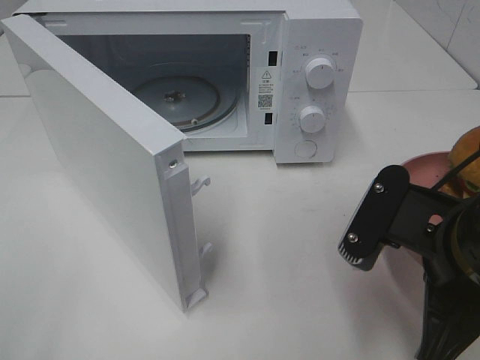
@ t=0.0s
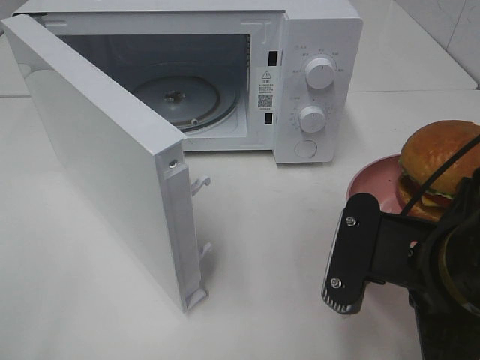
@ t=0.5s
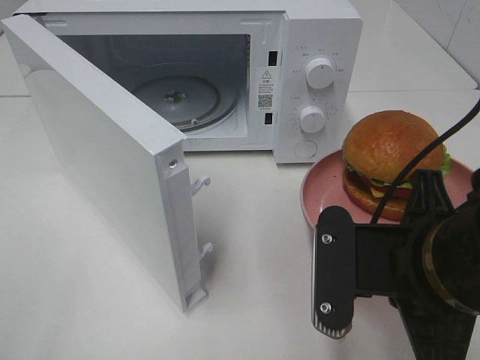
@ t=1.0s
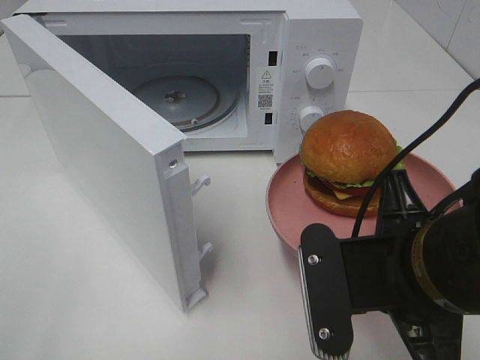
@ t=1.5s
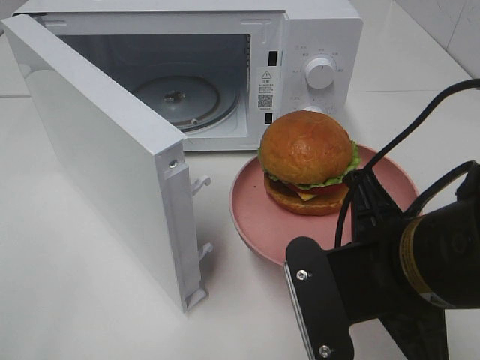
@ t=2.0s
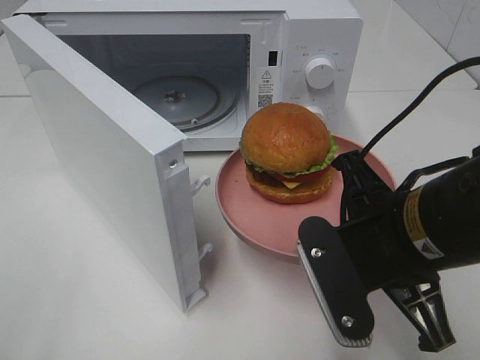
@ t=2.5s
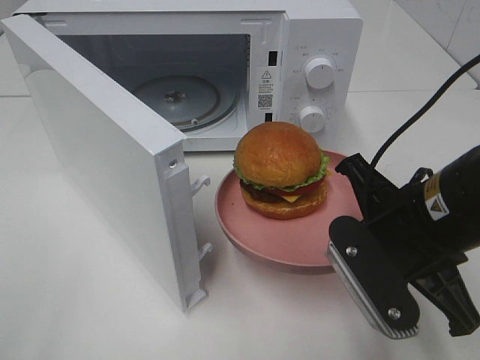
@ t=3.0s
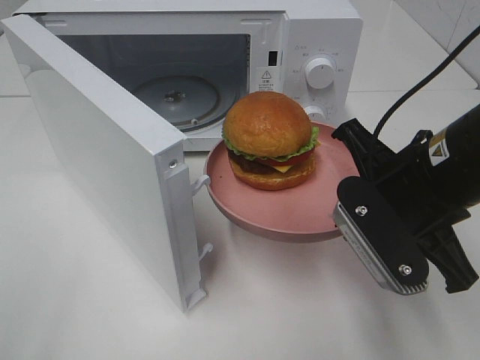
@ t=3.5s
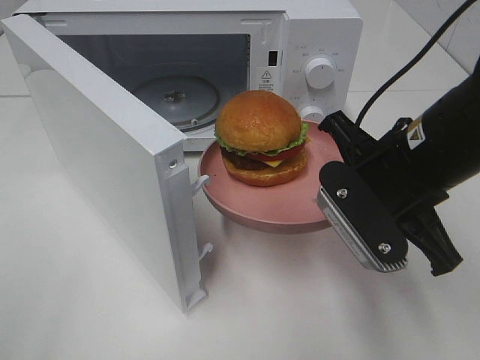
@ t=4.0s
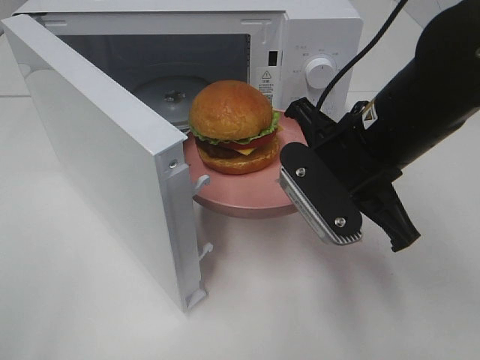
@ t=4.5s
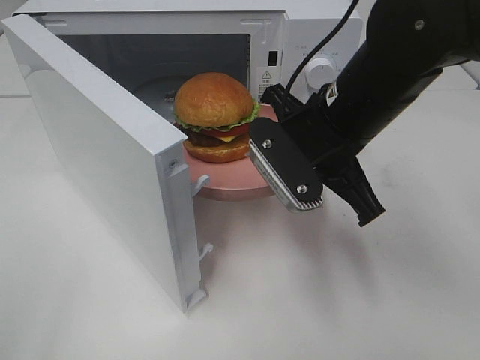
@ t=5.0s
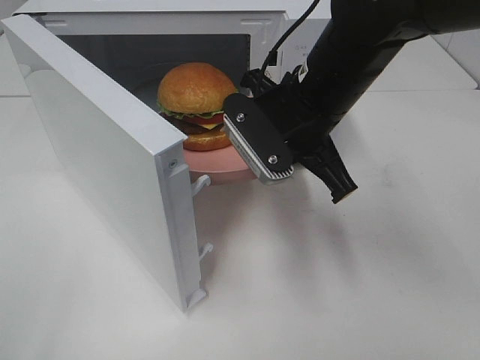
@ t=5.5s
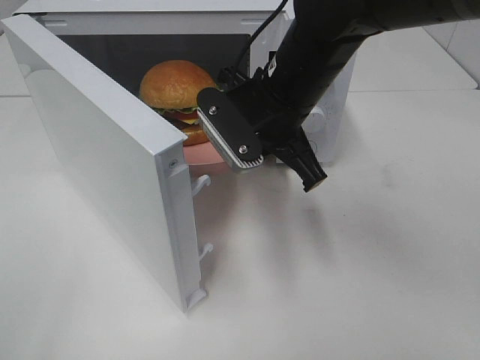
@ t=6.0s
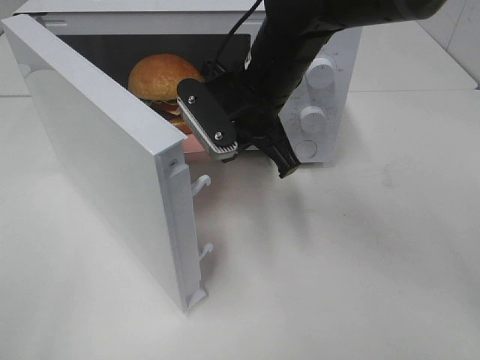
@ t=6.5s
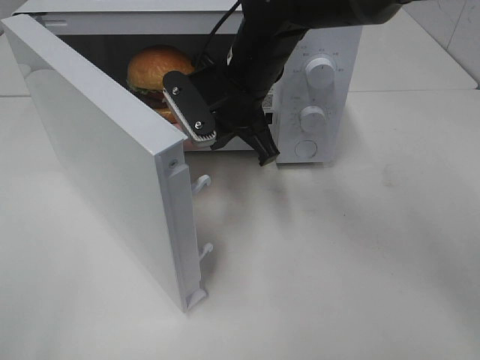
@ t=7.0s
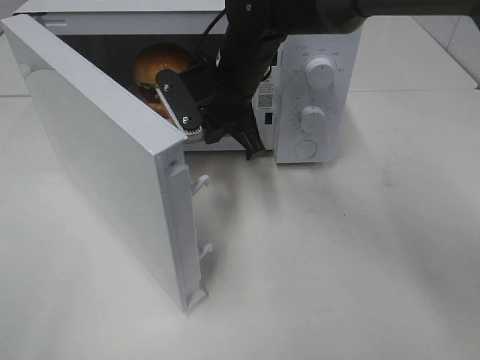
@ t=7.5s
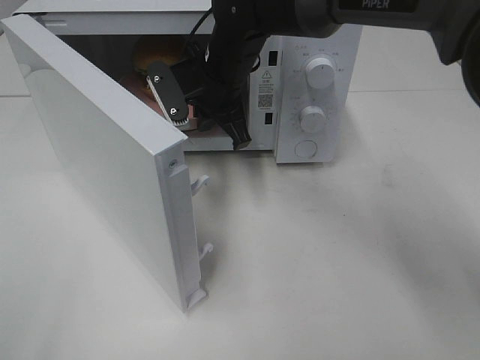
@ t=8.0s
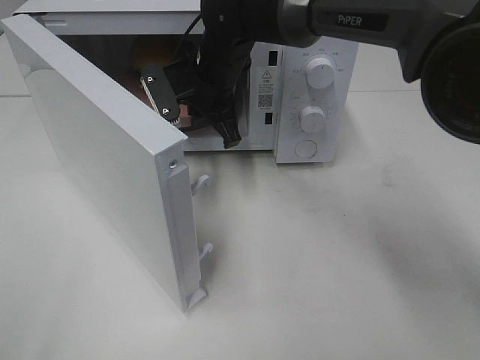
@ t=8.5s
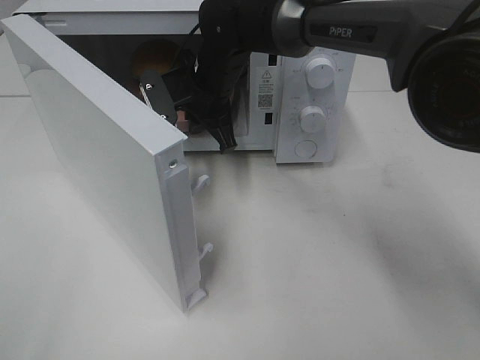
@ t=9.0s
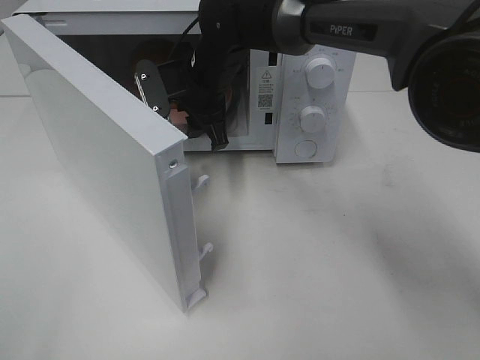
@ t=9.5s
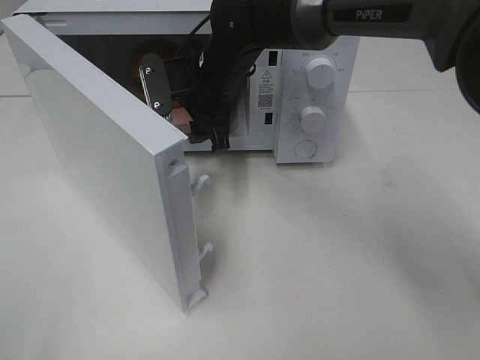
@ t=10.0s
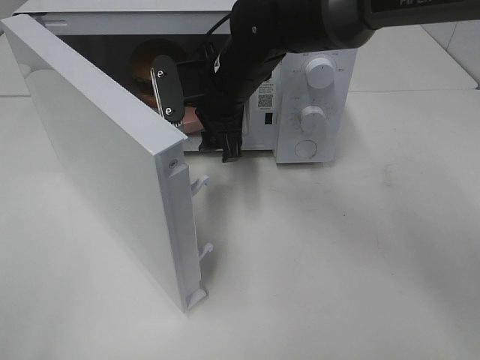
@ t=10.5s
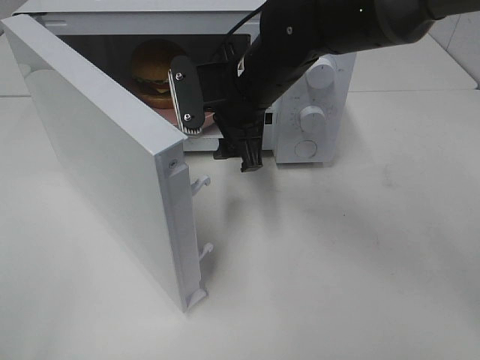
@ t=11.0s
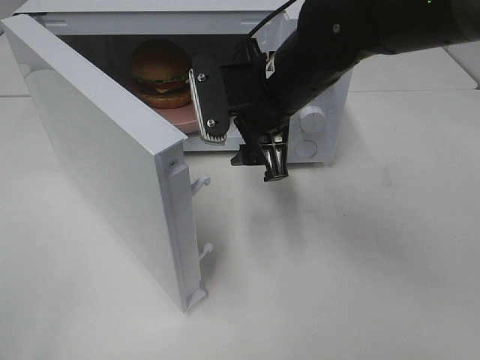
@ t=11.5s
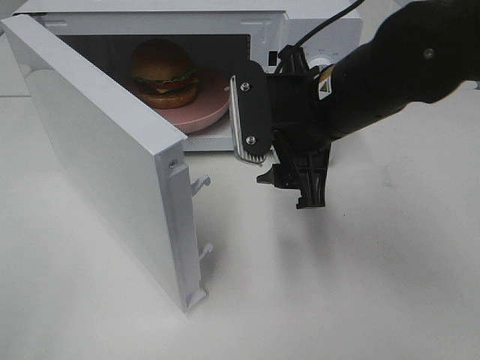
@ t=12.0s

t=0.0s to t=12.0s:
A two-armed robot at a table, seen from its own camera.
Task of the whole recording: Heat the burger.
Step, t=0.0s to t=9.0s: Right hand: place the plate in the microwave.
t=2.0s to t=4.0s: The right gripper moves forward, roughly 10 cm.
t=4.0s to t=6.0s: The right gripper travels forward and to the left by roughly 15 cm.
t=6.0s to t=8.0s: The right gripper goes roughly 10 cm forward and to the left.
t=8.0s to t=10.0s: The right gripper opens its fingers.
t=10.0s to t=12.0s: The right gripper shifts some 20 cm backward and to the right.

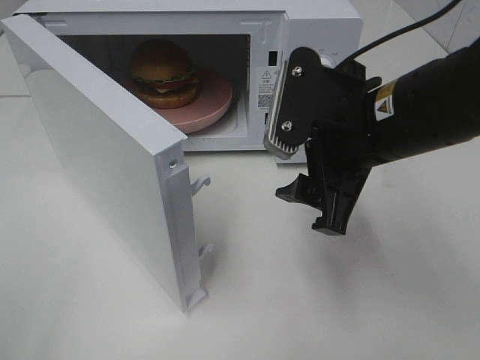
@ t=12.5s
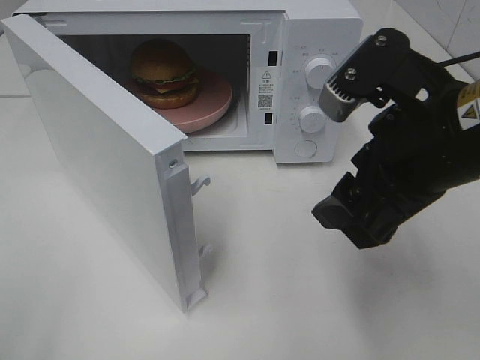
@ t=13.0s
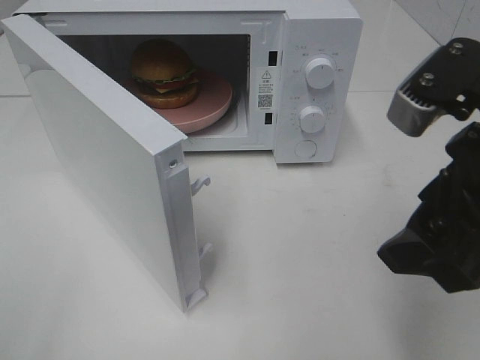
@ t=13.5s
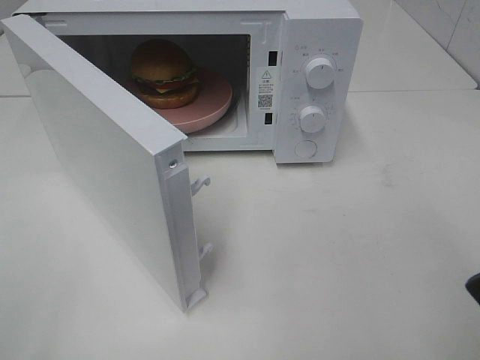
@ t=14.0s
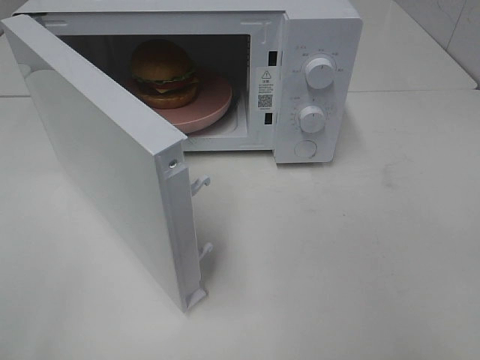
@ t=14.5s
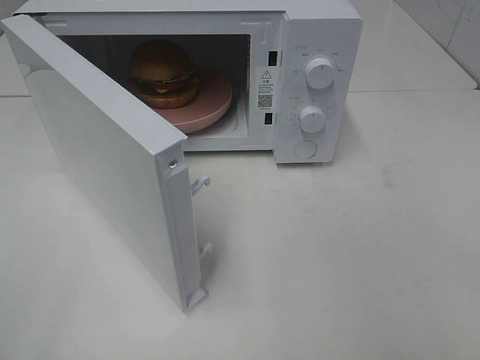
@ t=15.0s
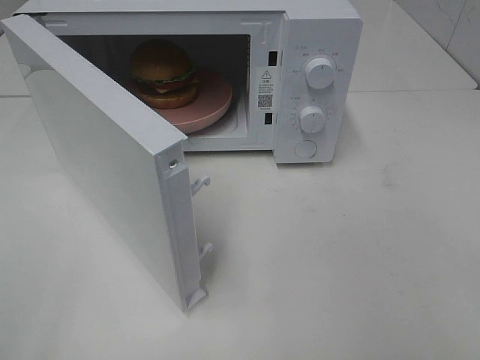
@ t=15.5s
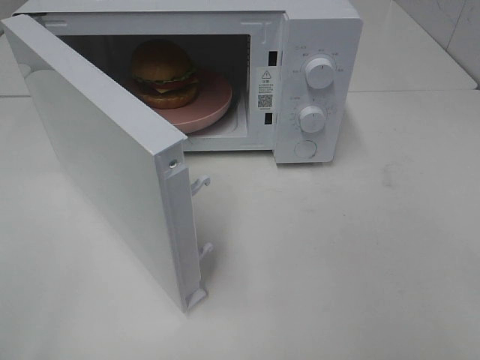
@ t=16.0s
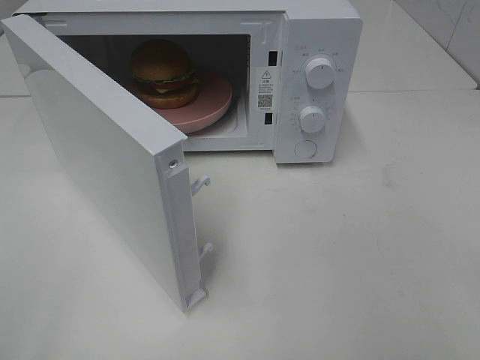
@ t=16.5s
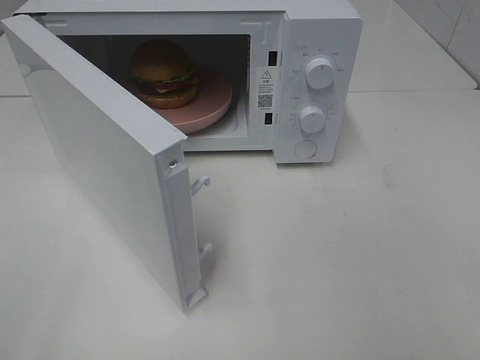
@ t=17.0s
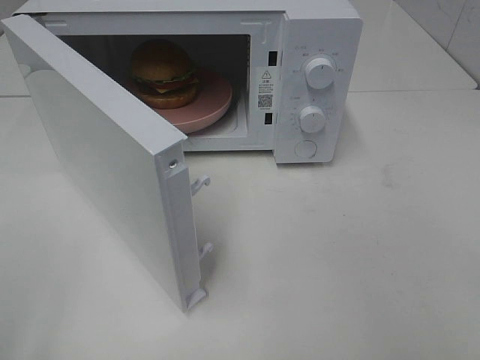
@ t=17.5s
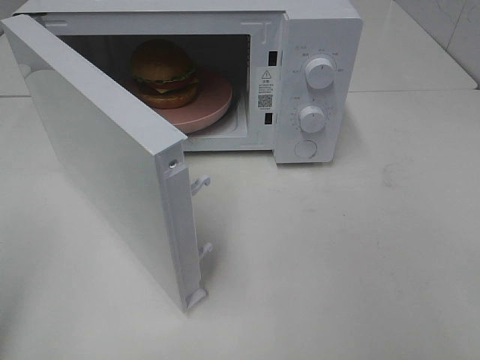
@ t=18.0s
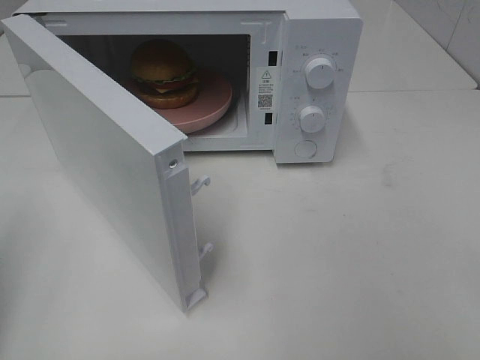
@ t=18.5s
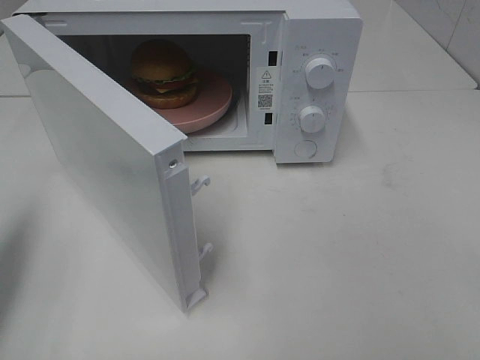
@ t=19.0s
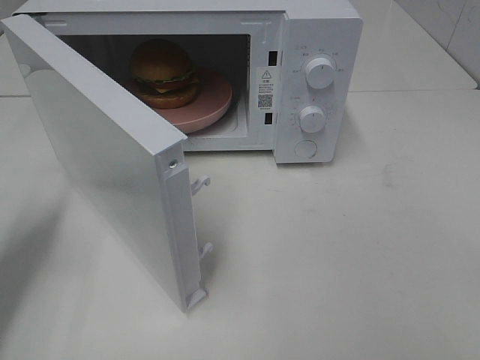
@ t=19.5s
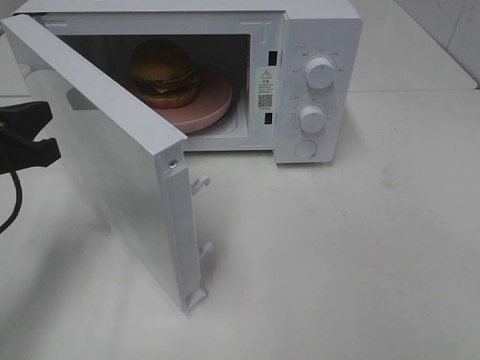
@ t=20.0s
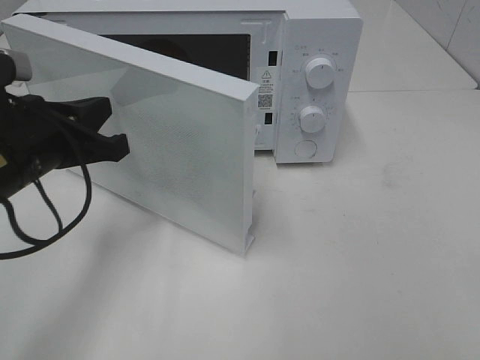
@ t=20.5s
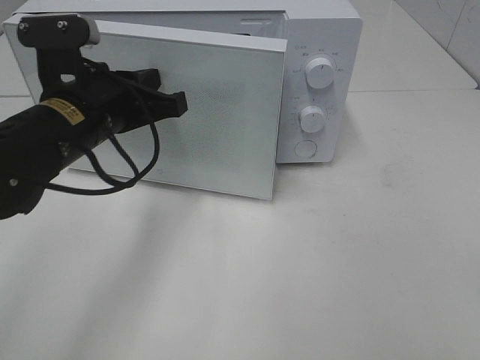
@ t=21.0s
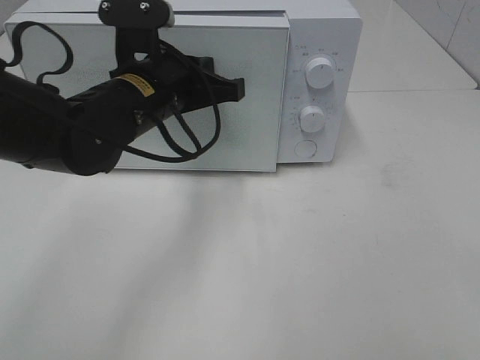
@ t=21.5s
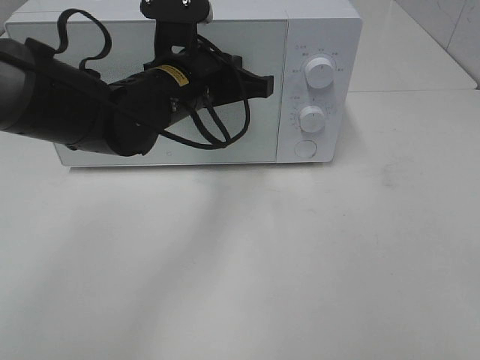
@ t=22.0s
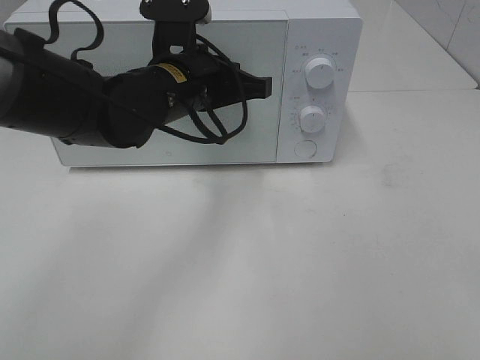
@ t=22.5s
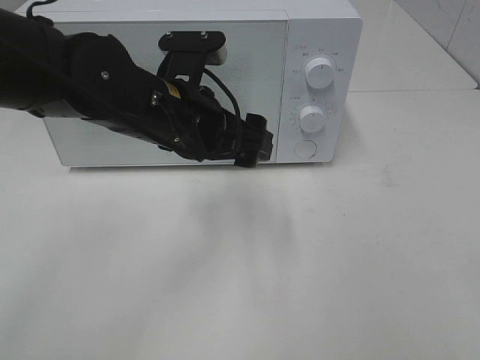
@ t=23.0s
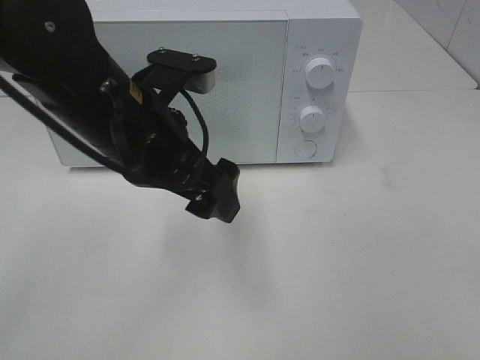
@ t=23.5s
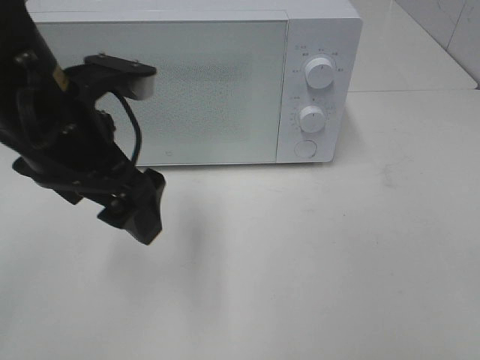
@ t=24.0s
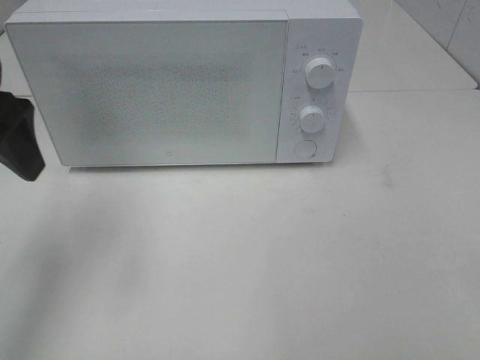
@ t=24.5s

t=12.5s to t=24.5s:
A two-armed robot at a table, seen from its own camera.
Task of the whole recording: Heat the burger.
Step, t=12.5s to t=22.5s: Left hand: close the microwave door.
t=12.5s to t=14.5s: The right gripper goes about 25 cm backward, to the right and upward.
t=18.5s to t=20.5s: The left gripper travels to the right, forward and downward by some 20 cm.
t=20.5s to t=22.5s: The left gripper goes approximately 15 cm to the right and forward.
t=22.5s to t=24.5s: The left gripper heads to the left, upward and backward, covering roughly 25 cm, and opens its fingers.

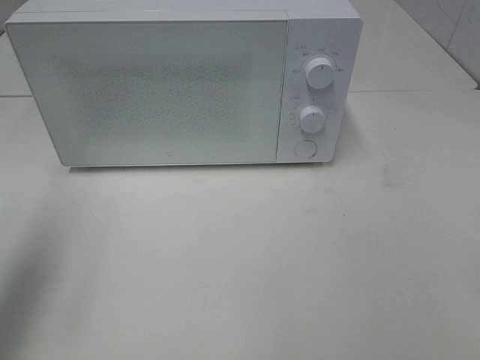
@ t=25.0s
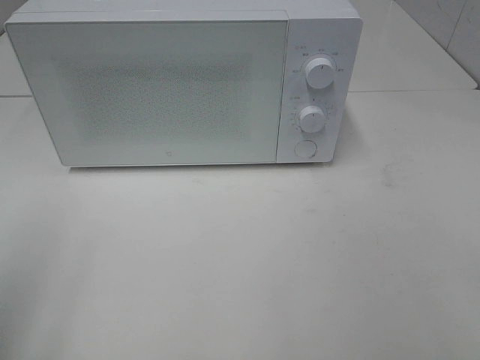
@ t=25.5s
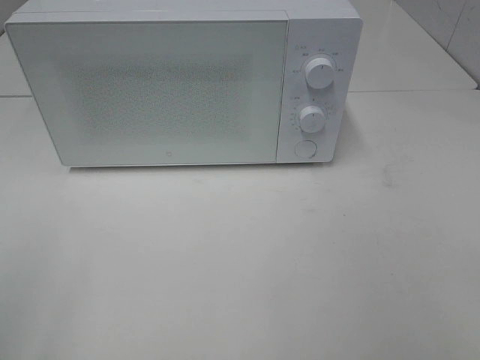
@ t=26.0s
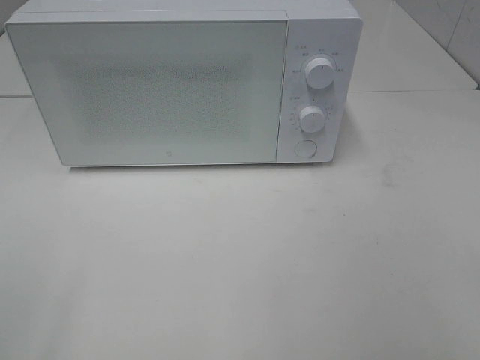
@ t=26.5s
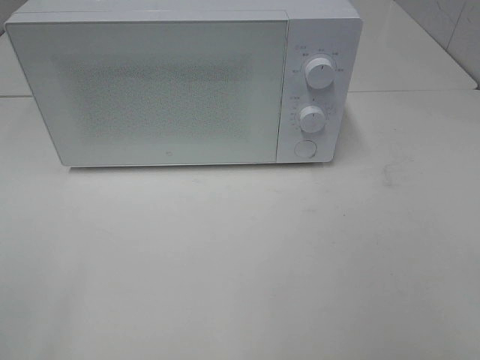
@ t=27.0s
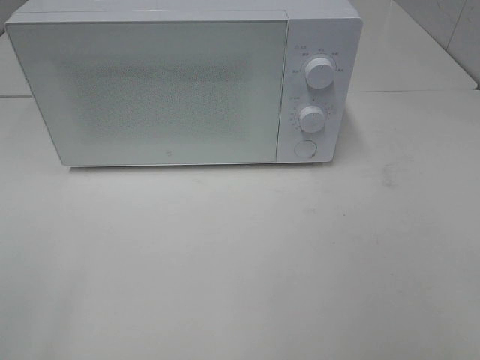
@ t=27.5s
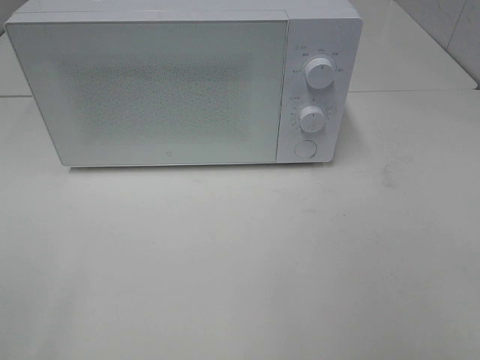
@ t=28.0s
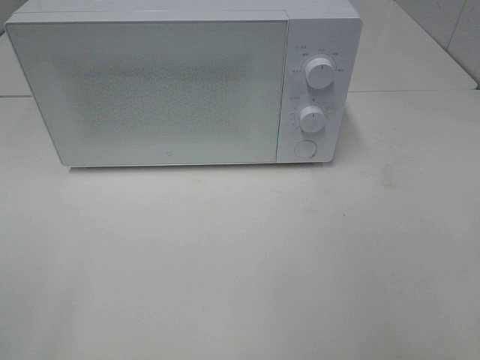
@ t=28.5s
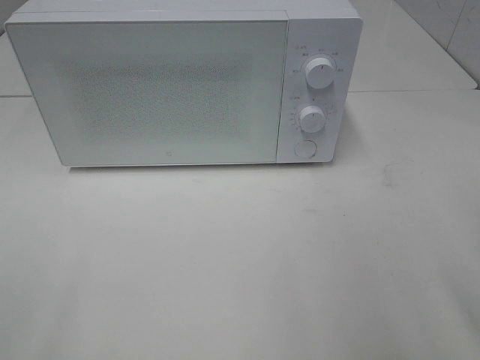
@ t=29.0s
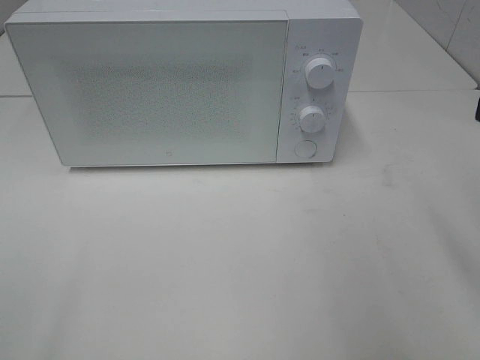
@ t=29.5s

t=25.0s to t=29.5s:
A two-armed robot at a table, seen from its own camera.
Task of the whole recording: Heat the burger.
t=25.0s to t=27.0s: The left gripper heads backward, covering about 20 cm.
